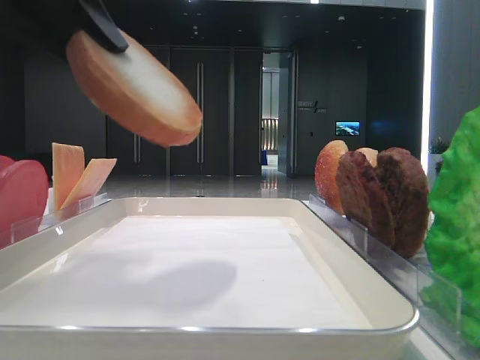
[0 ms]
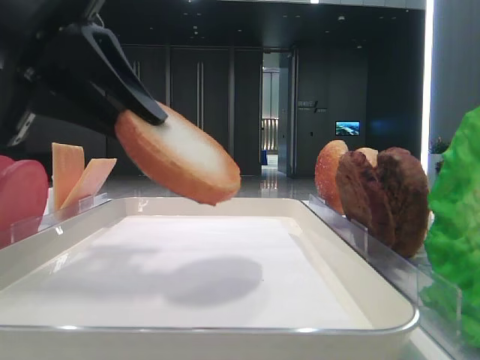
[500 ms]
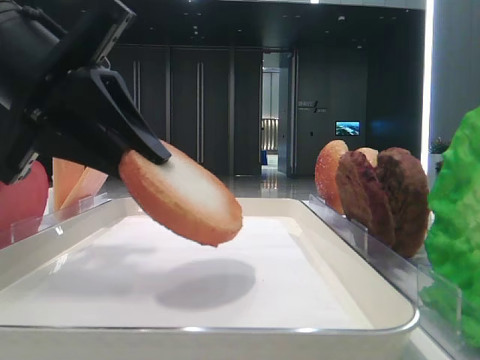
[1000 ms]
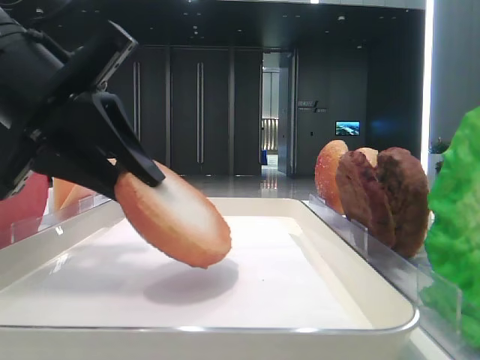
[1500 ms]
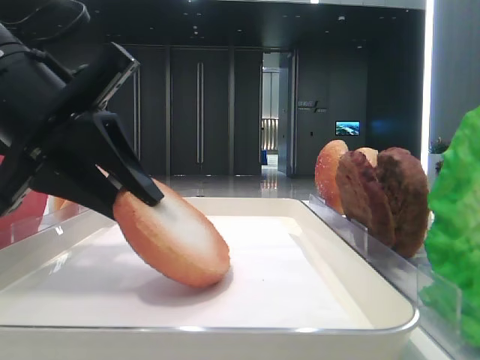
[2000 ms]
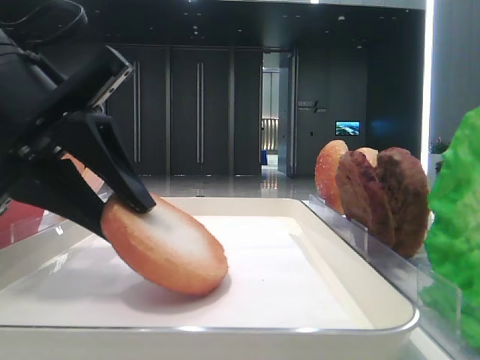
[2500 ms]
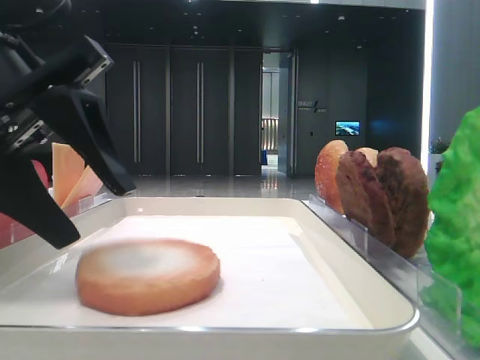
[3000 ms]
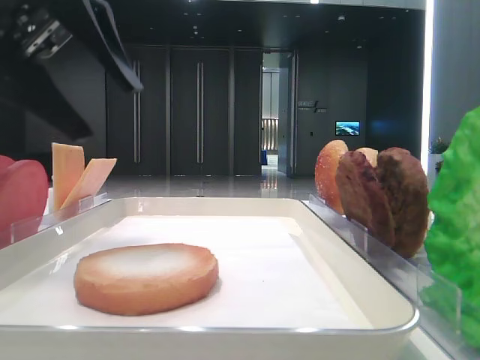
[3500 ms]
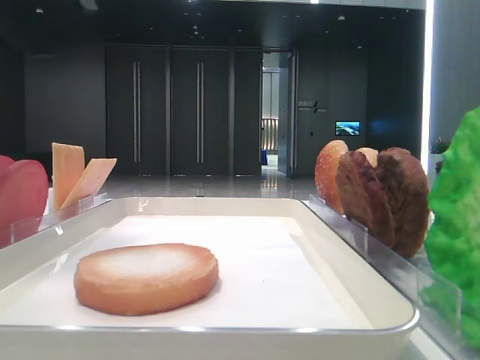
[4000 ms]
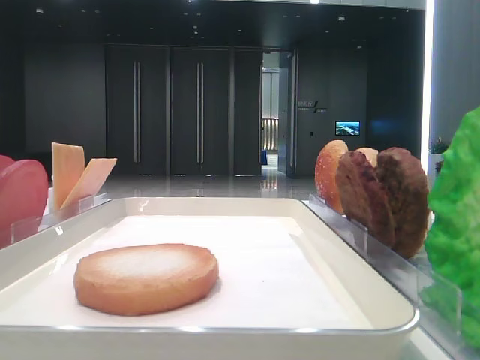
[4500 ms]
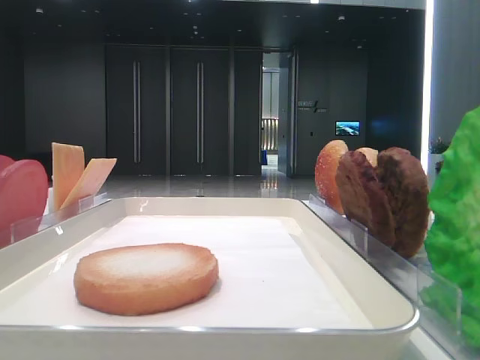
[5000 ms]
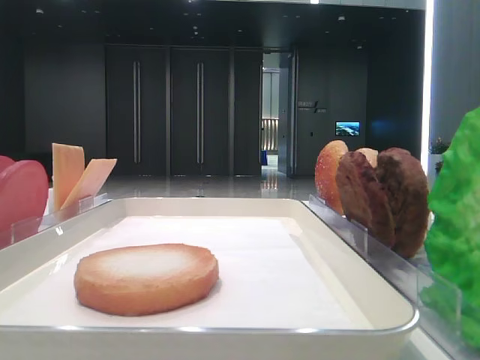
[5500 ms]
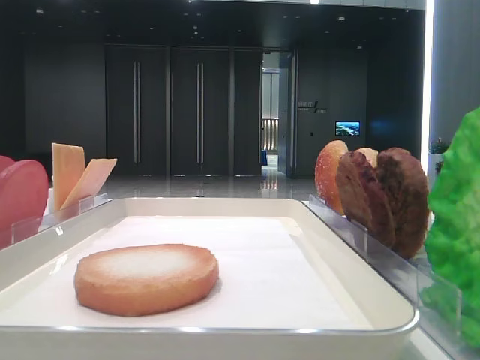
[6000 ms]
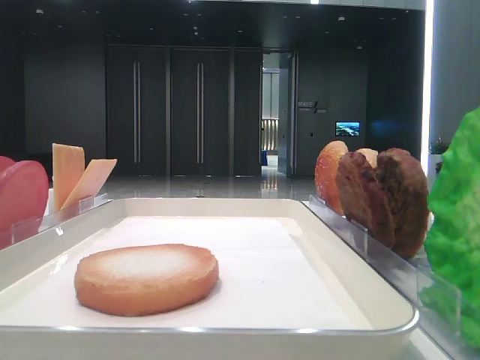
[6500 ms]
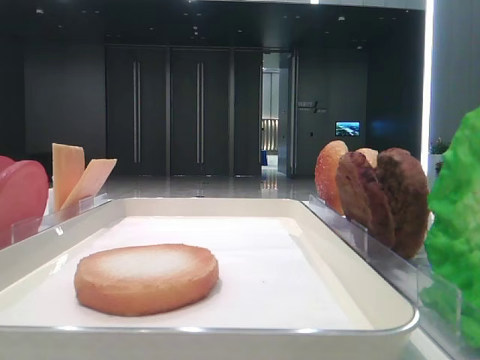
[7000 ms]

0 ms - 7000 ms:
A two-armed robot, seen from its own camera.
Step, 0 ms - 2500 ms: Place the bread on the tray with the left hand.
0 ms - 2000 ms: The left gripper heads downward, covering some 10 cm.
2000 ms - 3500 ms: The left gripper goes about 10 cm upward, and opens up.
3500 ms - 5000 ms: The left gripper goes approximately 15 cm to the left and upward.
